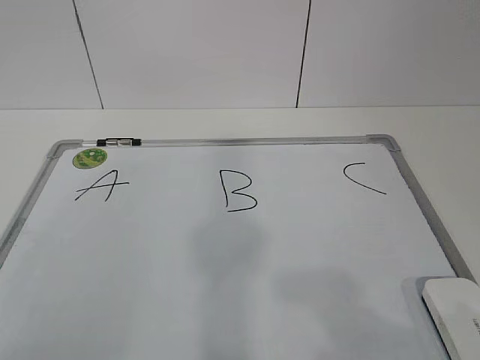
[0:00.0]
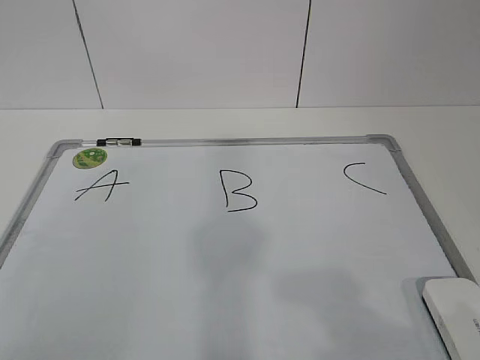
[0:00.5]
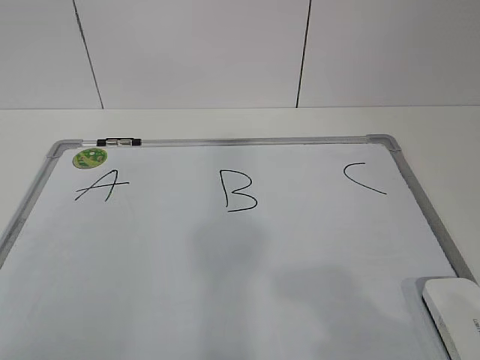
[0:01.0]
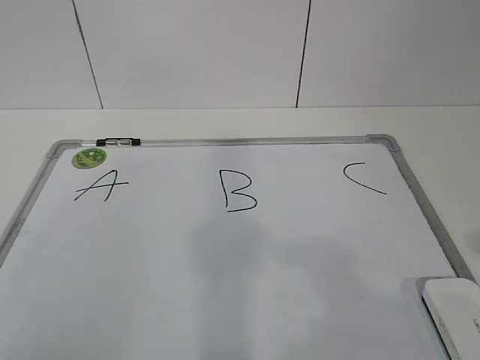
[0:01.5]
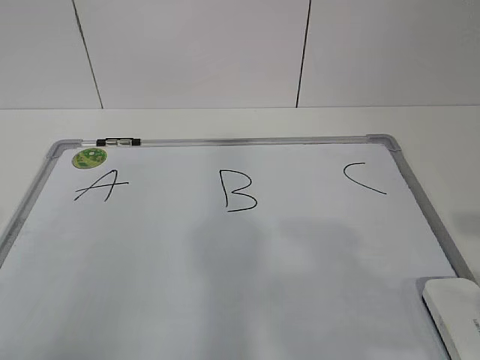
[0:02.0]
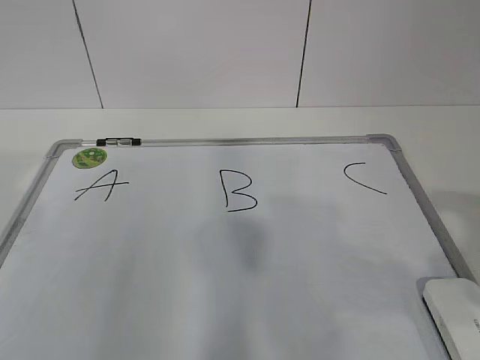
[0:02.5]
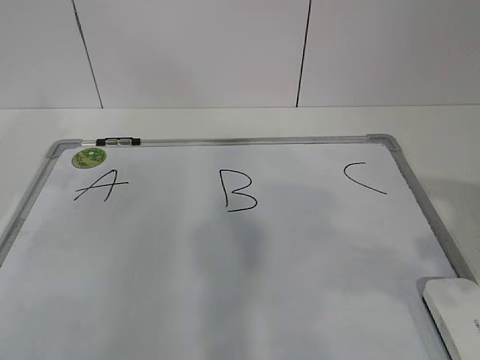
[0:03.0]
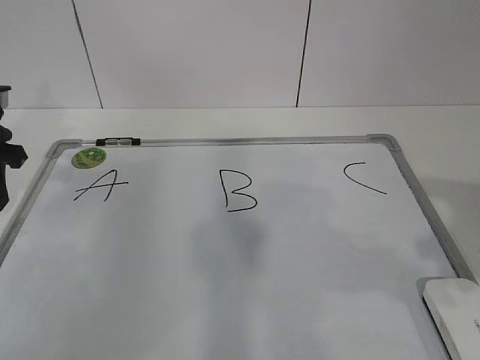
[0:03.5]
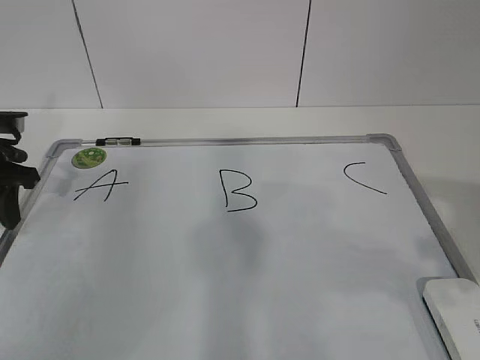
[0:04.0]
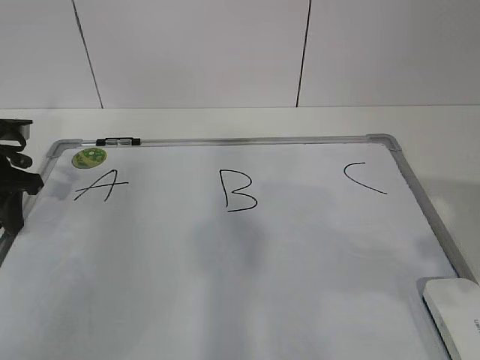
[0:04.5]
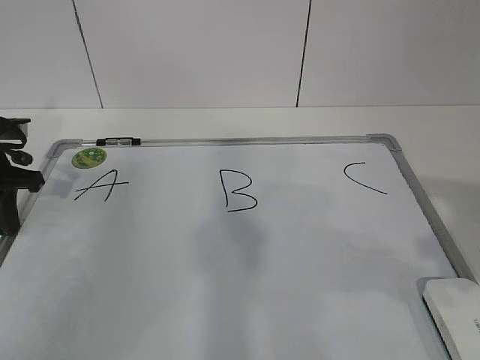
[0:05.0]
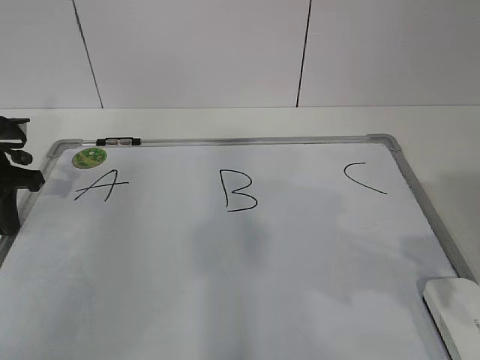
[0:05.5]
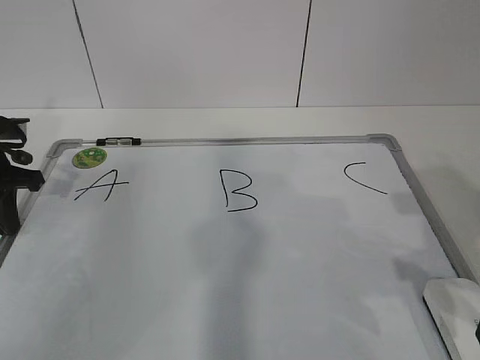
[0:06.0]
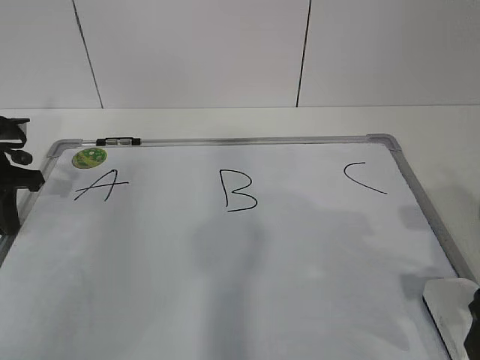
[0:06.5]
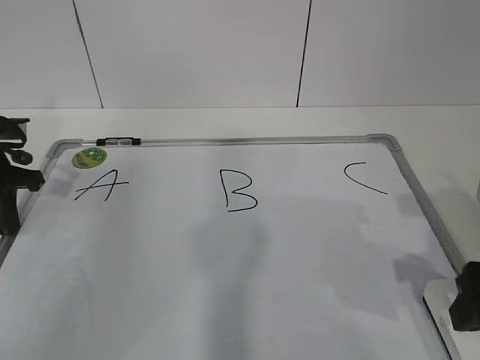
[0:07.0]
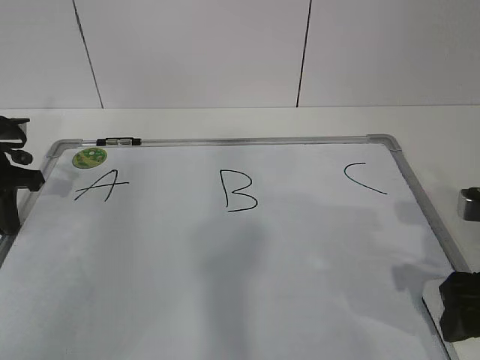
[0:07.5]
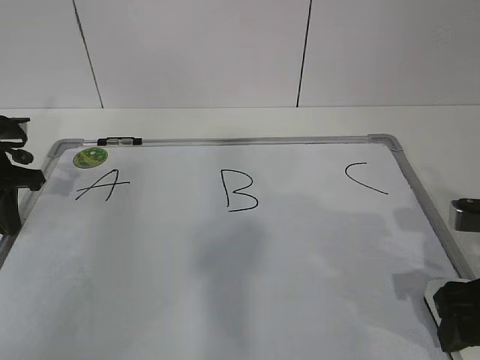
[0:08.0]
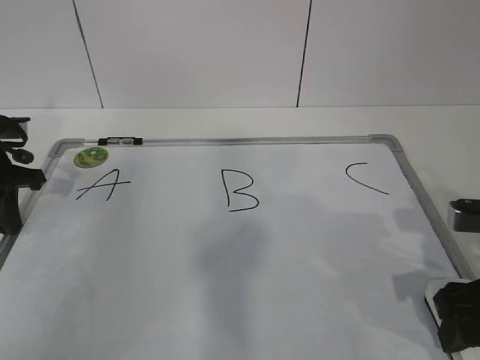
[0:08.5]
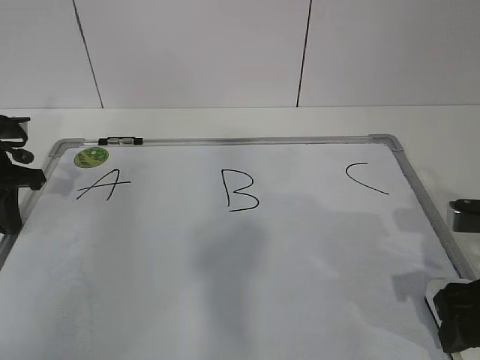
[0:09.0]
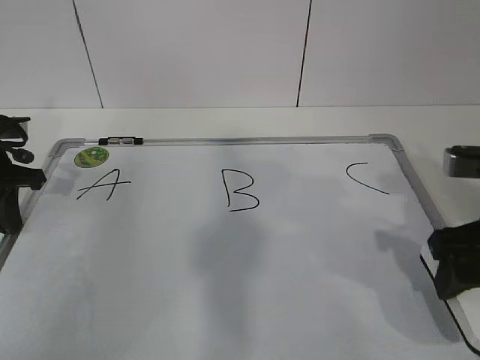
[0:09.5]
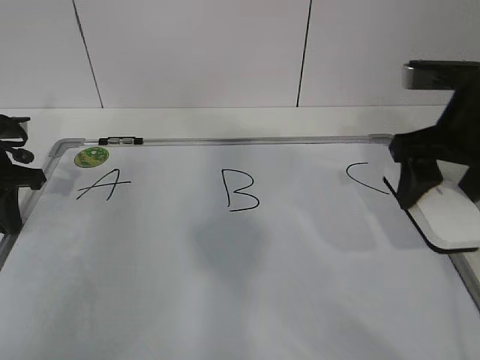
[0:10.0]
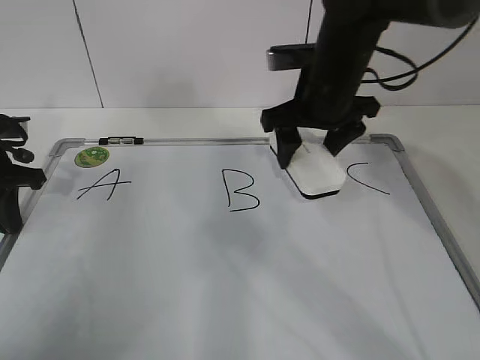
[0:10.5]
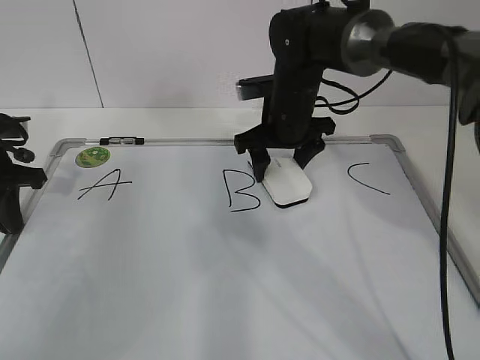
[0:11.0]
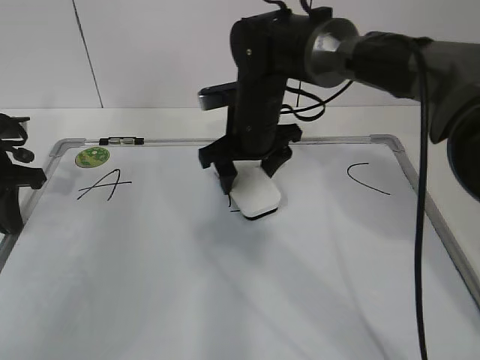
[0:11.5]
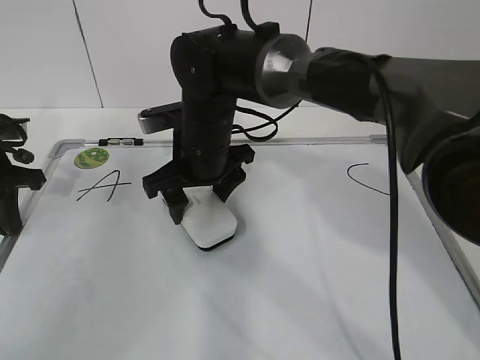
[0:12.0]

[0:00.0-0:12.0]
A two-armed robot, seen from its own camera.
Task of the whole recording: pick up the eraser on the blackboard and erase the letter "B".
Step, 0:04.0 to 0:07.0: Grab the eraser with your right hand.
Step, 0:08.0 to 0:11.5: Erase the letter B with your right hand.
0:02.0 to 0:04.0: The left gripper heads forward, covering about 30 cm.
0:04.0 to 0:06.0: The left gripper closes; the right gripper is displaced downward and forward by about 5 cm, and opens up.
0:06.0 to 0:08.0: The right gripper travels downward by approximately 5 cm, and closes its fingers.
0:08.0 to 0:10.0: The right gripper moves forward and upward, some 15 cm.
0:10.0 to 0:12.0: The right gripper heads to the left, covering roughly 25 cm.

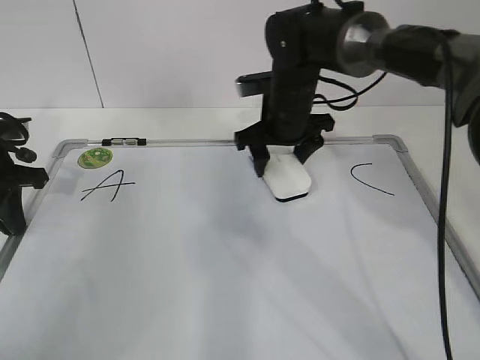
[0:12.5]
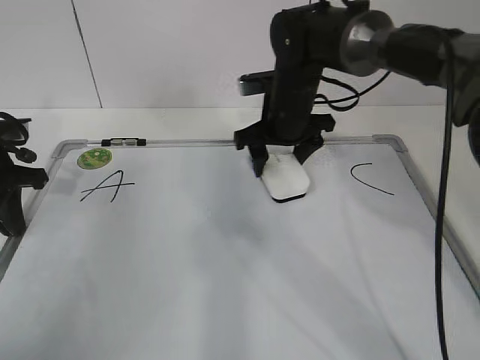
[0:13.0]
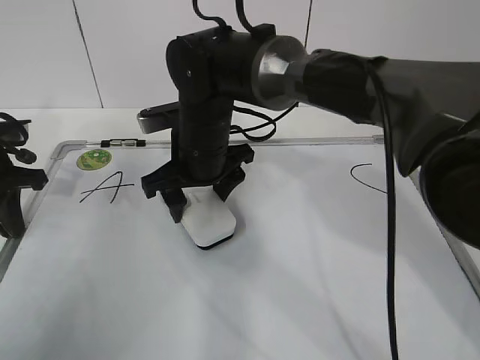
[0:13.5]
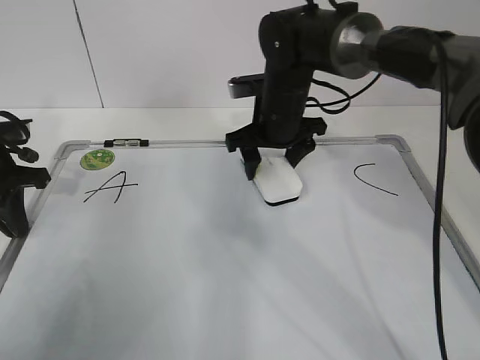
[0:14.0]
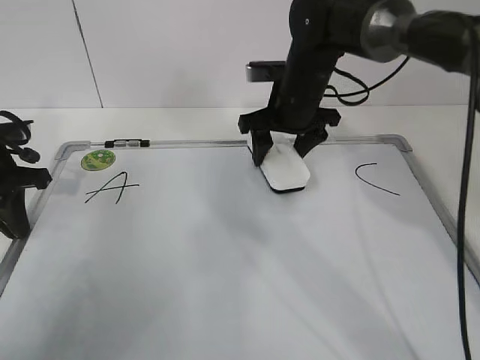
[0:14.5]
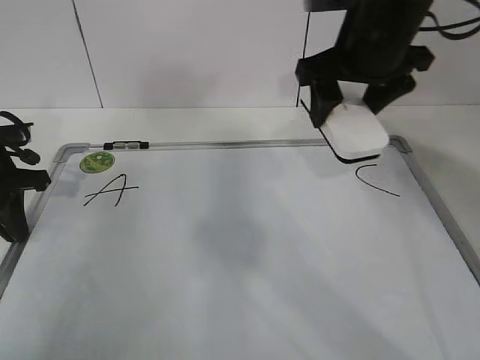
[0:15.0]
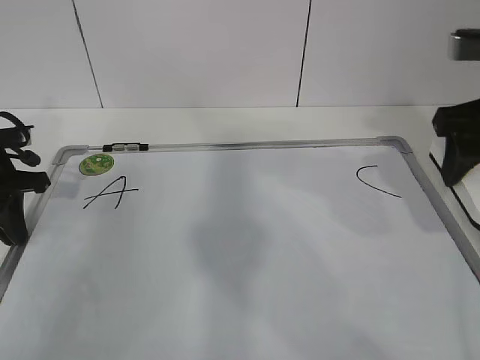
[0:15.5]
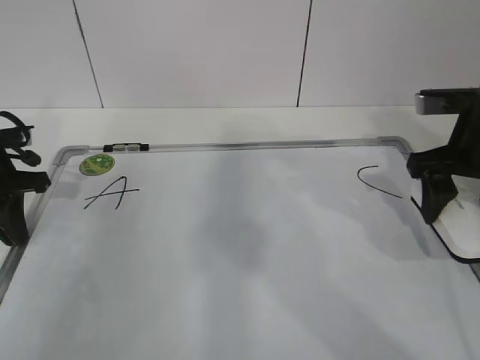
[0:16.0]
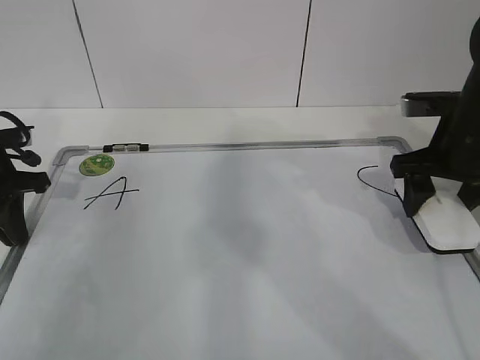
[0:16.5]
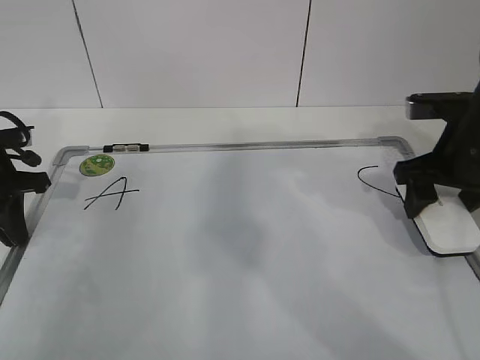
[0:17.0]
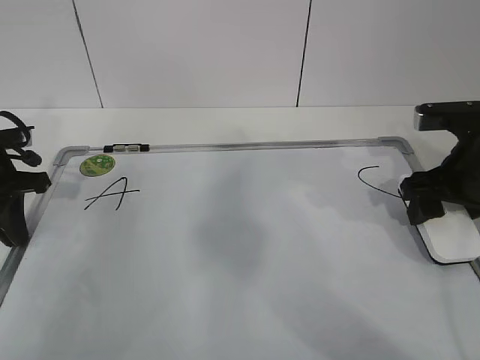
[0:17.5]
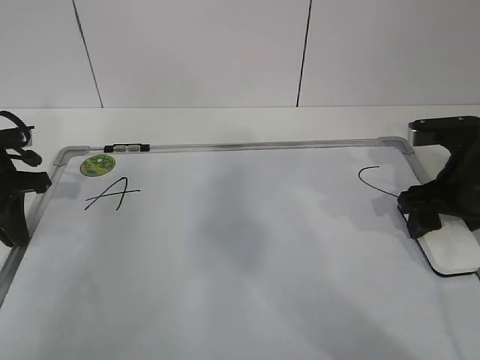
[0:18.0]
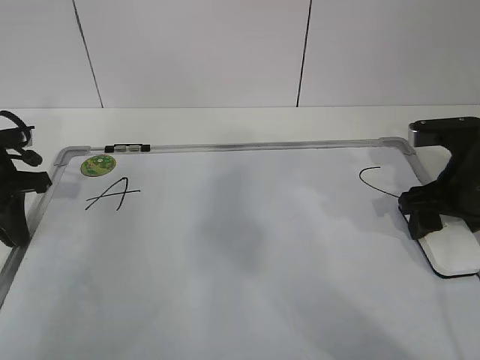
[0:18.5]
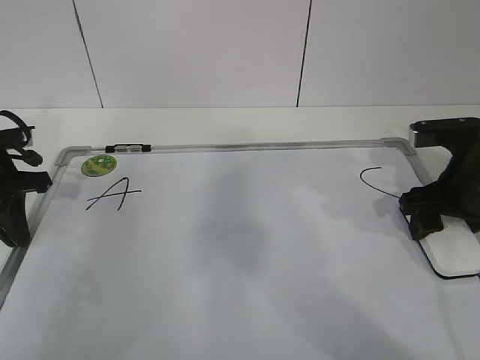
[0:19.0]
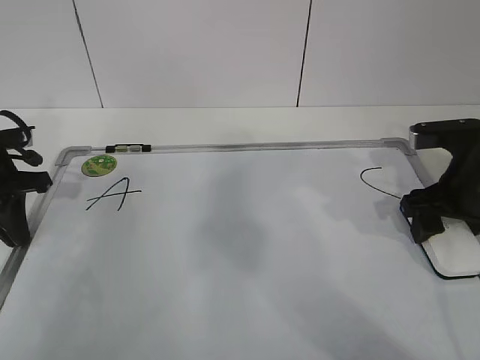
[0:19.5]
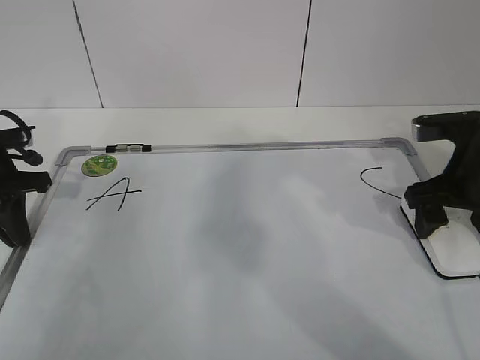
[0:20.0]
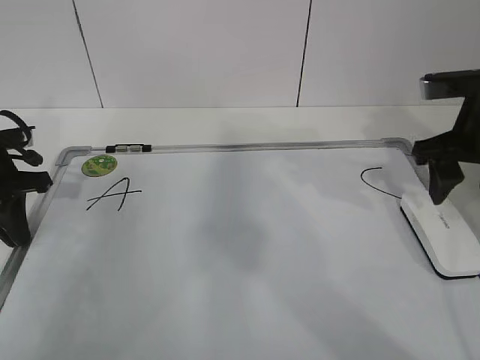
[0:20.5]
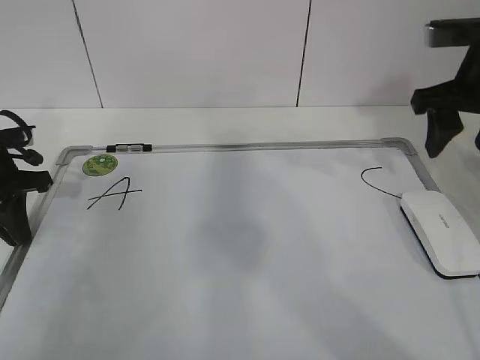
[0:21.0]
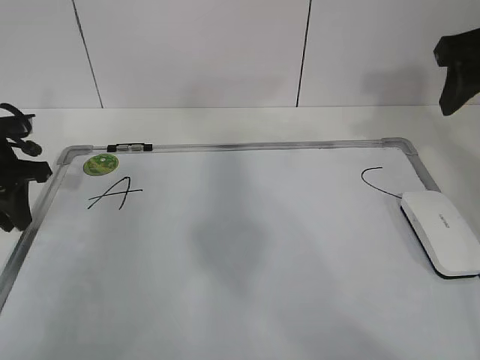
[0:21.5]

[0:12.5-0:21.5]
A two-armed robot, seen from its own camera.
Task of the whole recording: pick up the eraser on the blackboard and erase the letter "B".
Step, 0:12.5 to 0:14.5: Put down the eraser with your right hand.
0:12.5 to 0:14.5: The right gripper travels to the left and back again, roughly 10 cm each way.
0:14.5 to 0:17.0: The right gripper travels to the right and backward by some 20 cm.
0:17.0 to 0:19.5: The grippers move only a little.
0:19.5 to 0:21.5: The left gripper opens. Meanwhile the right gripper moves upward, about 15 cm, and closes its fingers.

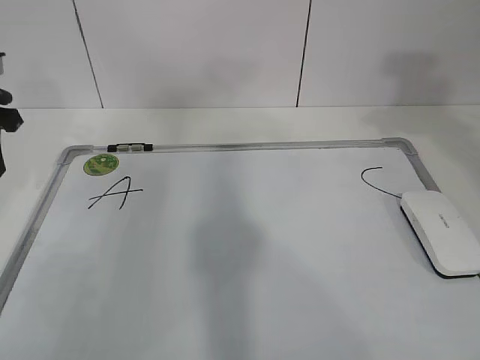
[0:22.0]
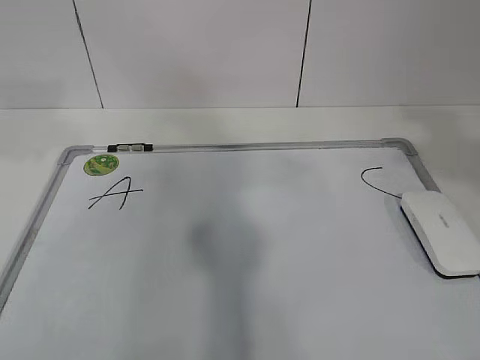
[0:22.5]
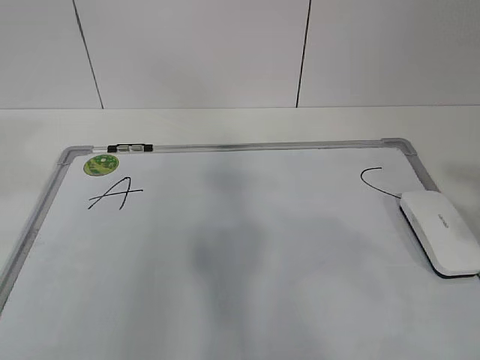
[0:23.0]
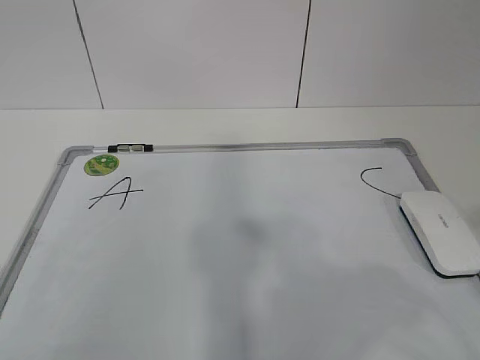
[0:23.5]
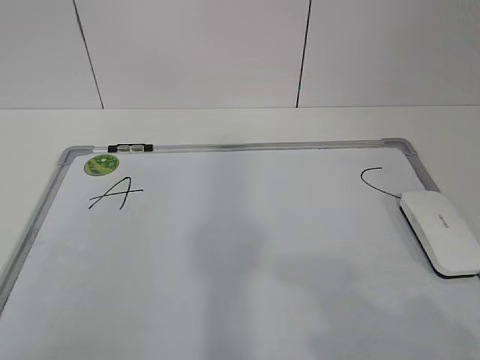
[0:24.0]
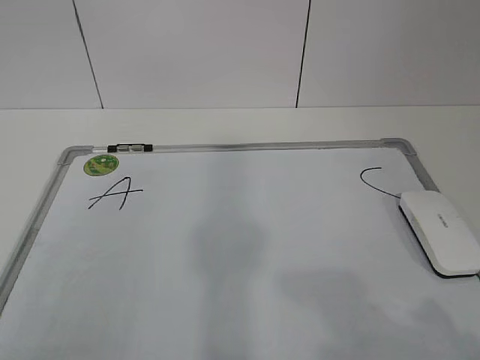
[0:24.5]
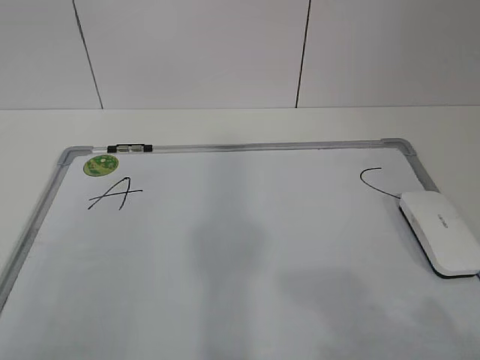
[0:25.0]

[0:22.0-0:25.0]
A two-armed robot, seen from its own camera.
Task of the whole recording: pick up the eraser on the blackboard and erase the letter "B".
0:22.0 to 0:23.5: The right gripper moves backward, approximately 25 cm, while the left gripper shifts approximately 35 cm backward.
0:23.5 to 0:25.0: The right gripper travels downward by approximately 5 cm.

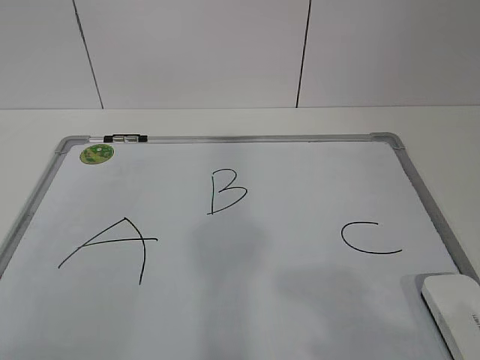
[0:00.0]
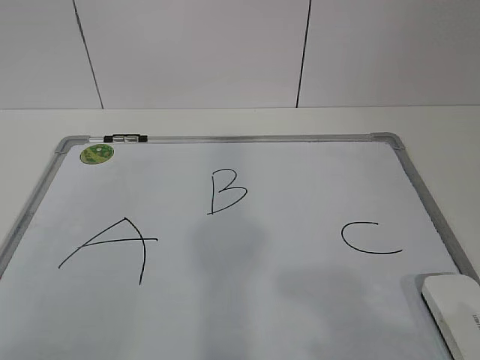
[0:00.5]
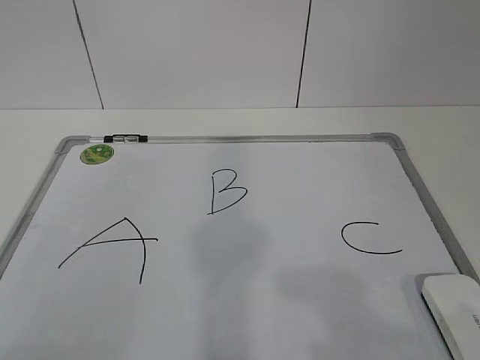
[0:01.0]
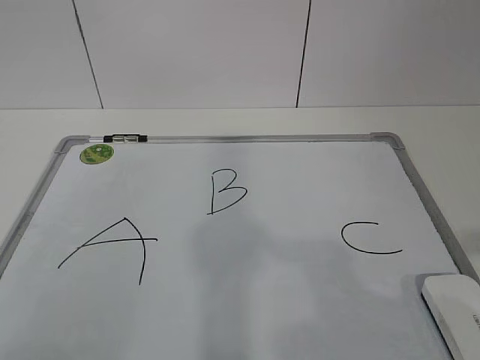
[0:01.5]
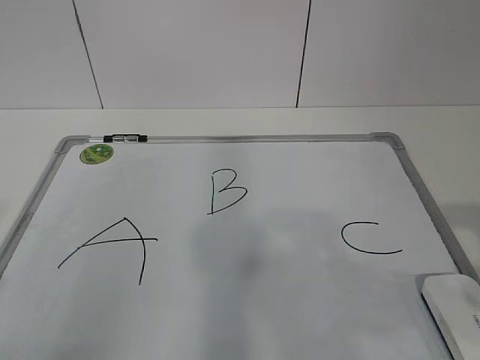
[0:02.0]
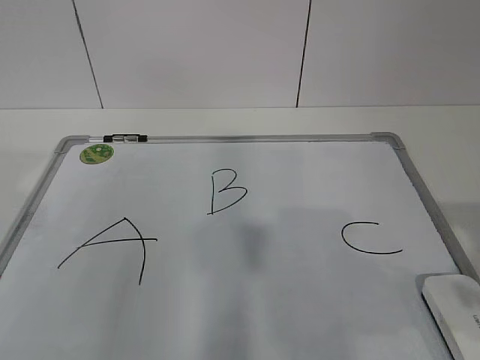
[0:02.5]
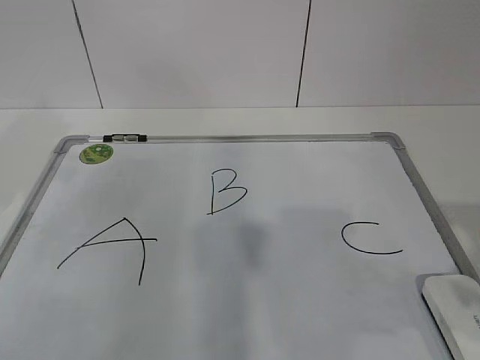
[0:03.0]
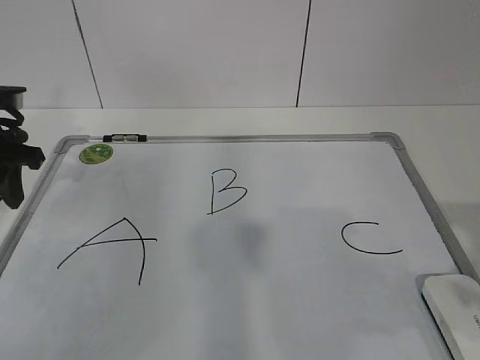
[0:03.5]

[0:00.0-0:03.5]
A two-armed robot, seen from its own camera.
Task of the whole recording: pick up the eraser on the blackboard and erase the letter "B".
0:02.0 to 0:03.5: The left gripper goes approximately 30 cm forward.
